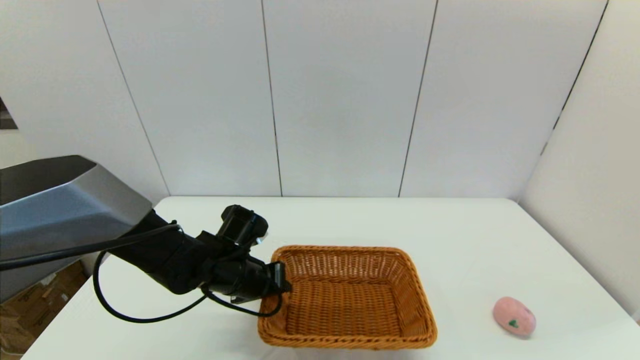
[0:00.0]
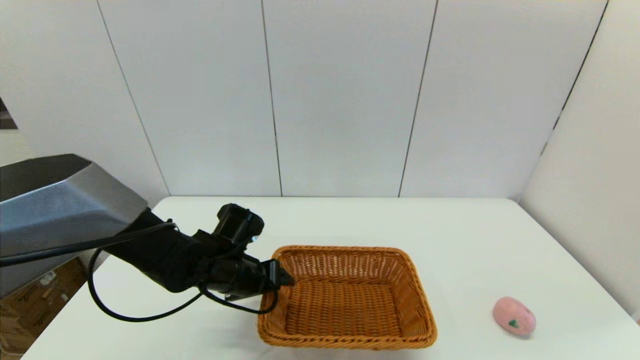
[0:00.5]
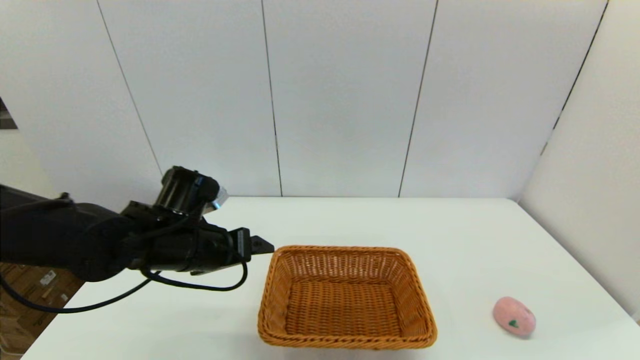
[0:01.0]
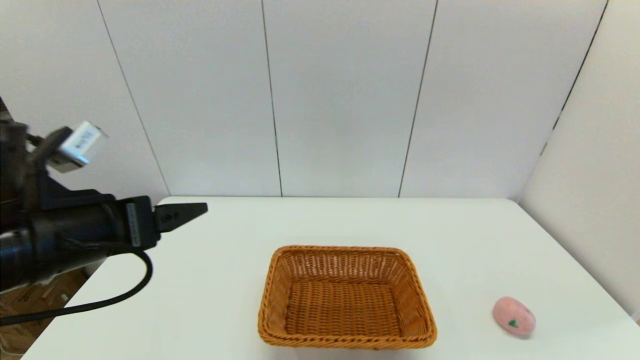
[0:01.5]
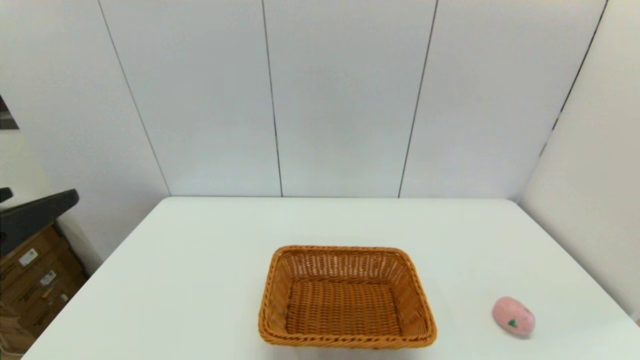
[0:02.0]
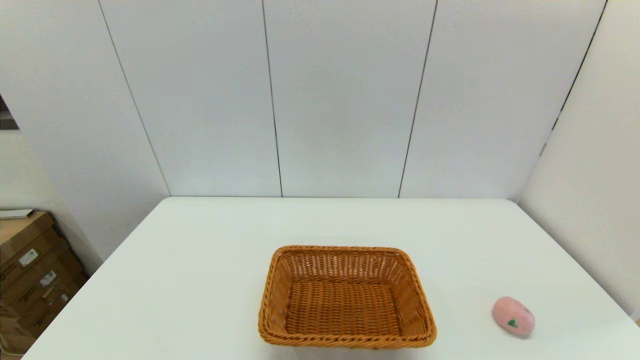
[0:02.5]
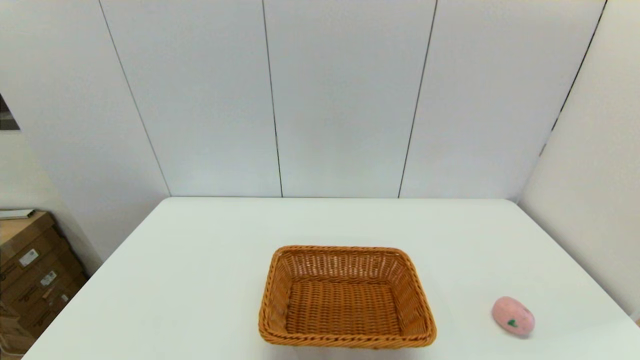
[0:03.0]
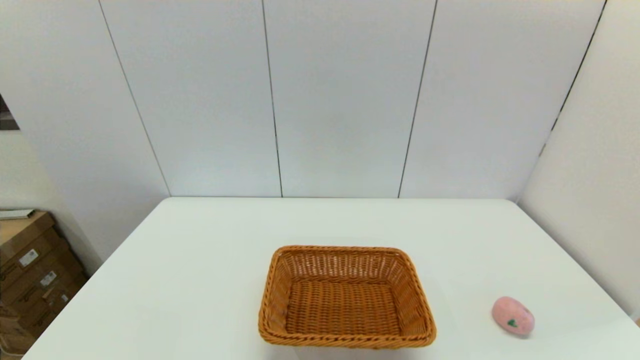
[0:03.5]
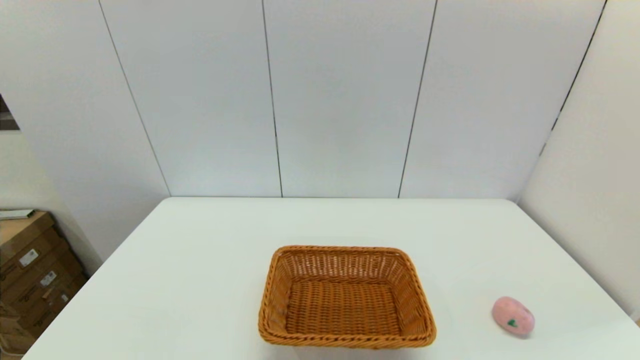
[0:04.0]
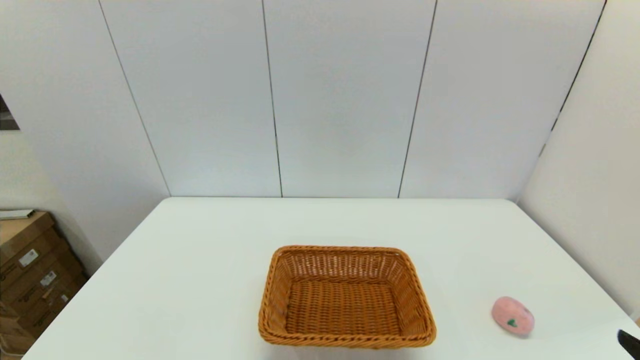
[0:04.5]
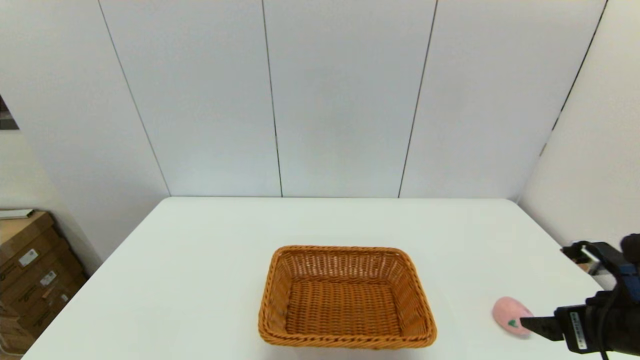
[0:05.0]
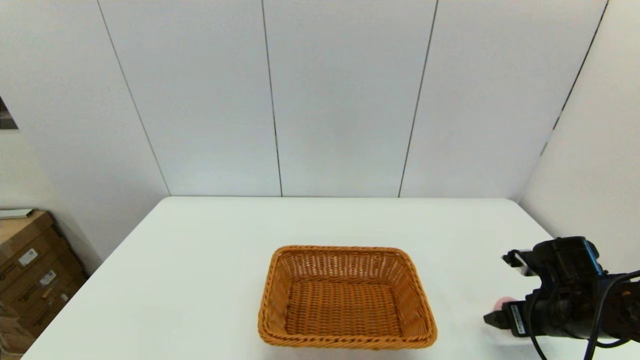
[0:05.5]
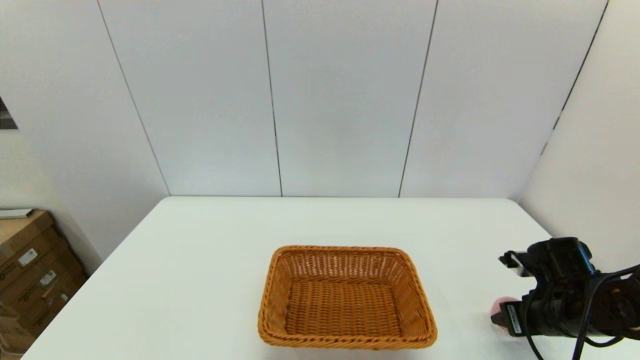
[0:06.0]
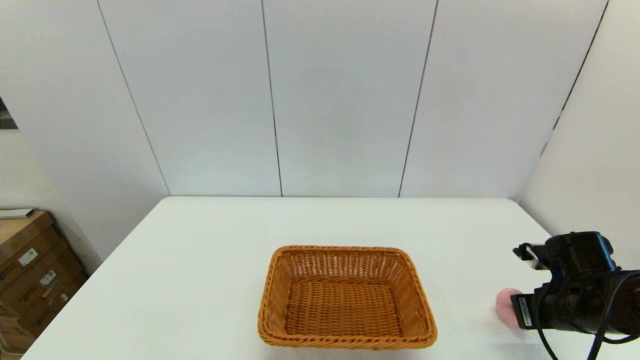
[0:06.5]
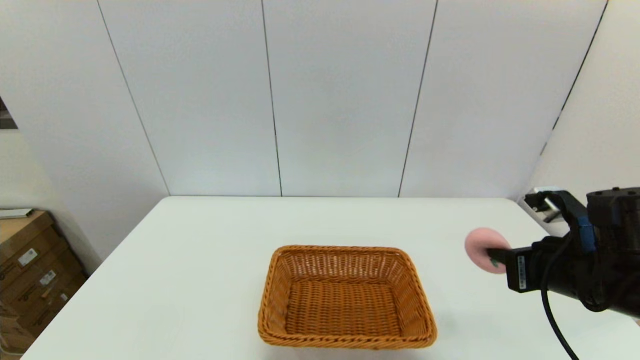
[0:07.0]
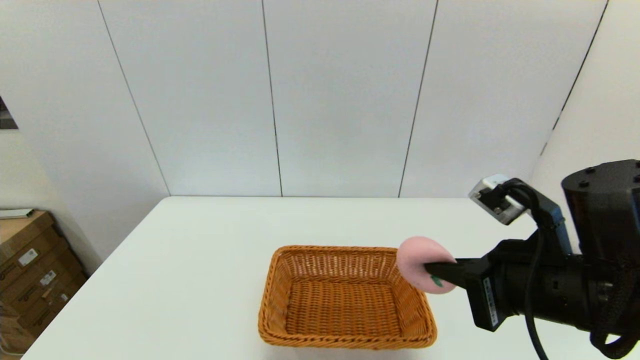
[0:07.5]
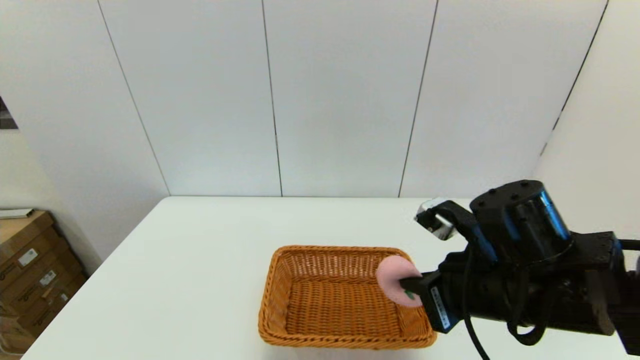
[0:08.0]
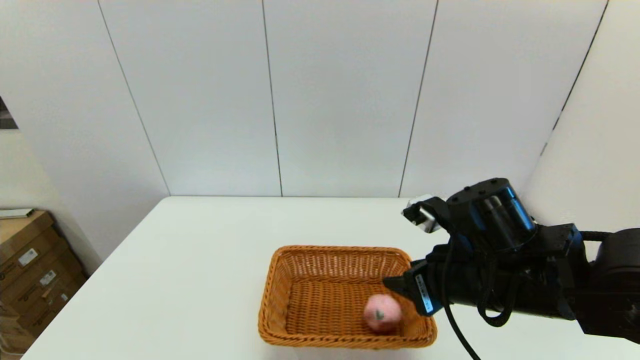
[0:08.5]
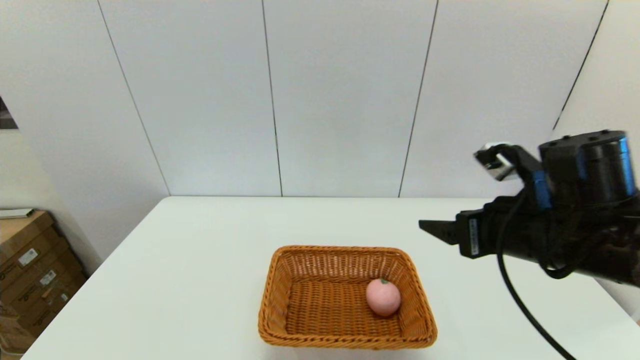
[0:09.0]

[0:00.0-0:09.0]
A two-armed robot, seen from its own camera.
Step, 0:00.5 to 0:06.0: Grasp the peach with the right gripper.
Step, 0:06.5 to 0:08.5: Place the peach into the light basket with the right gripper.
0:00.0 to 0:02.0: The left gripper heads backward, upward and to the left, covering about 35 cm, and opens.
0:02.0 to 0:04.5: The left gripper heads downward and backward, covering roughly 20 cm.
0:04.5 to 0:07.0: The right gripper is displaced forward by approximately 15 cm, and closes up.
0:07.0 to 0:09.0: The right gripper travels to the left and upward by roughly 5 cm, and opens.

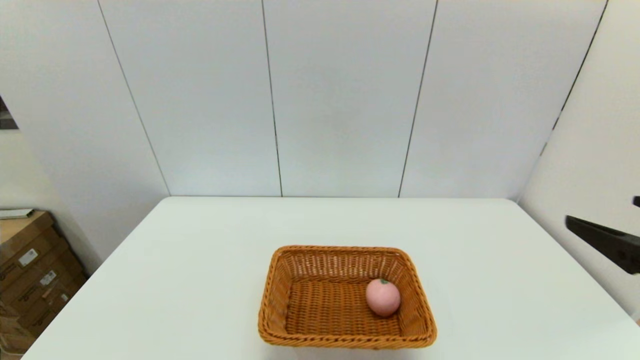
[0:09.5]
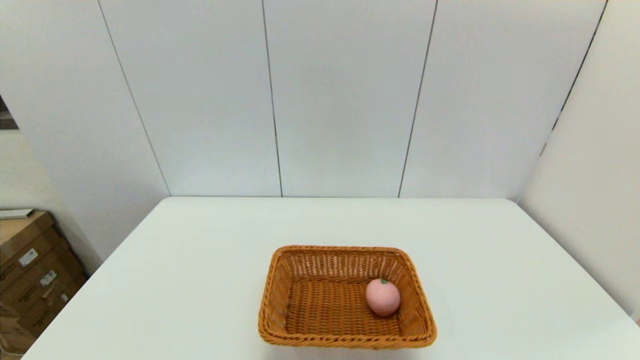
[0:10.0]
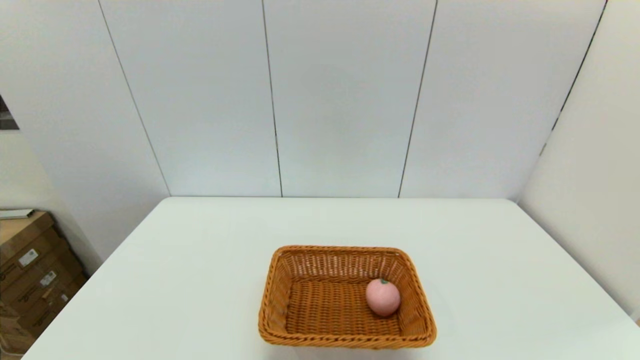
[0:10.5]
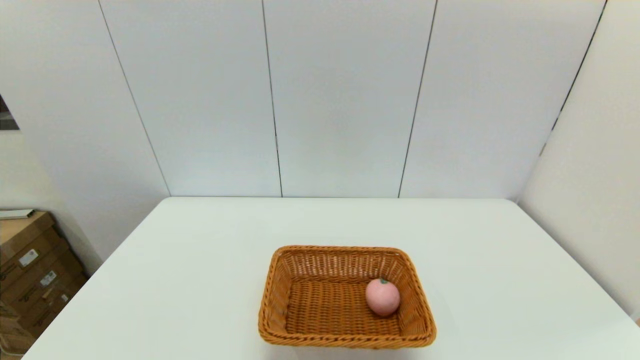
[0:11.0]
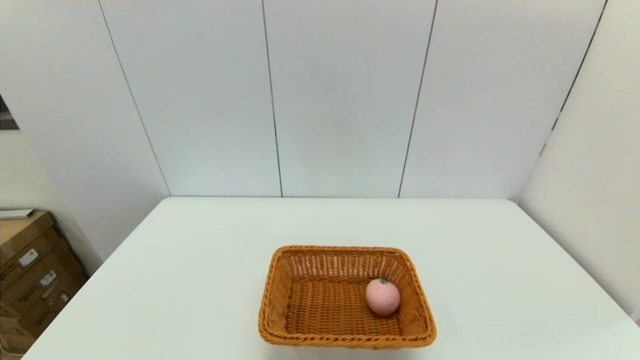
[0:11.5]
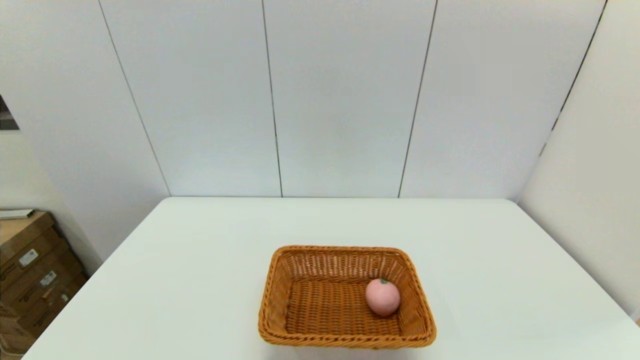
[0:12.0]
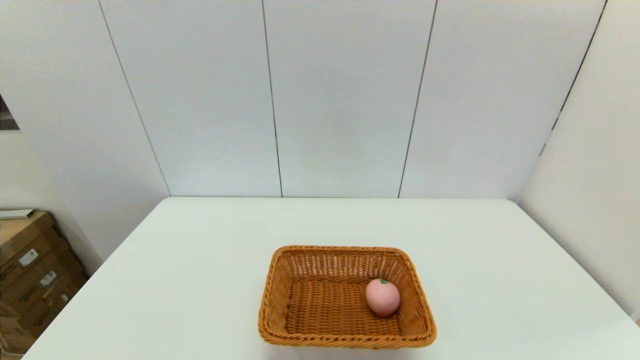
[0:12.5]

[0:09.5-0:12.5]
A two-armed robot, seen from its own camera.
0:09.5 to 0:11.0: The right gripper goes about 20 cm downward and backward.
